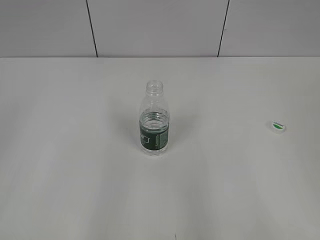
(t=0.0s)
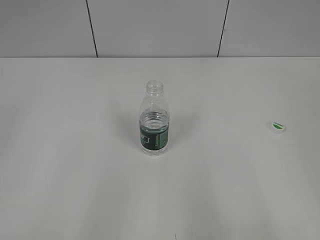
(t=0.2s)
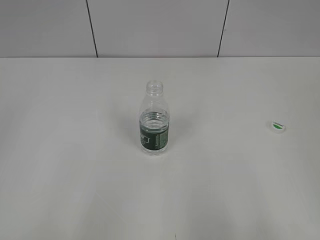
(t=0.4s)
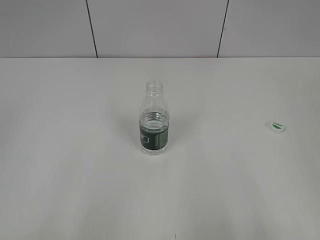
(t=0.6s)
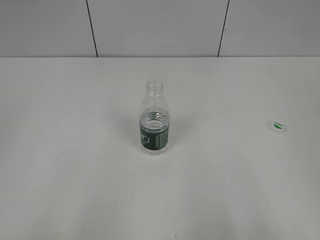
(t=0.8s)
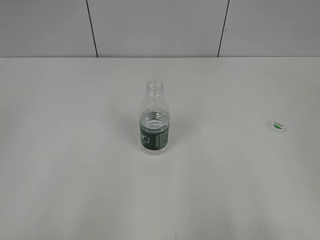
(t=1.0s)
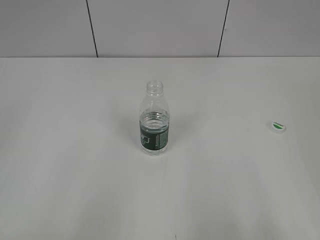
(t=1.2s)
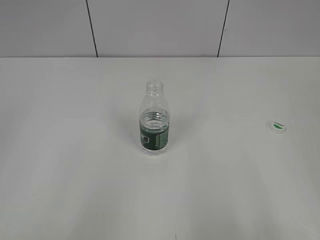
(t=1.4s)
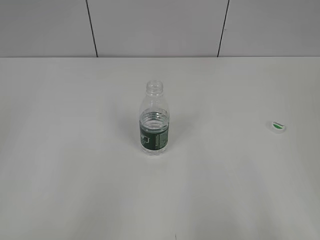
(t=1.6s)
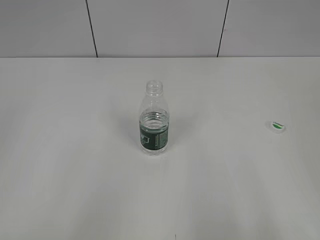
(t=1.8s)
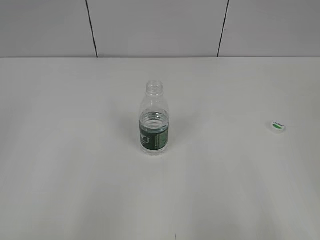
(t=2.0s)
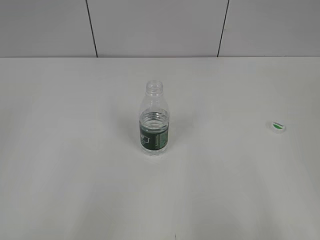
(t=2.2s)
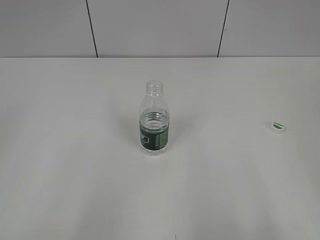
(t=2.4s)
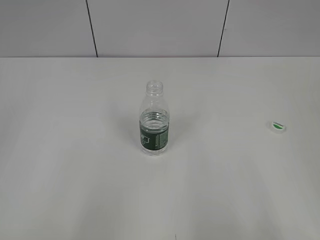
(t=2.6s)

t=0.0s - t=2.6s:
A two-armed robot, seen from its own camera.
t=1.2s - t=2.6s: Neither gripper changes place.

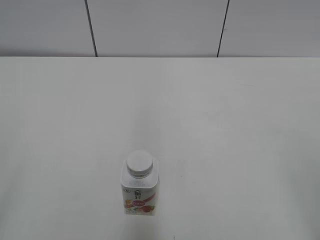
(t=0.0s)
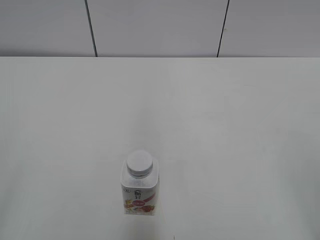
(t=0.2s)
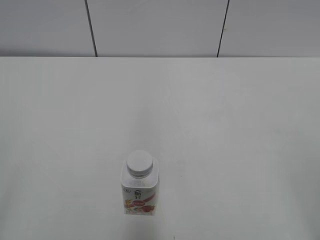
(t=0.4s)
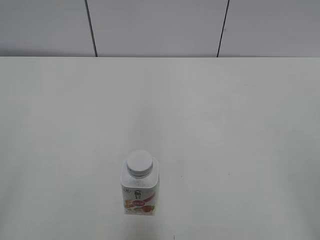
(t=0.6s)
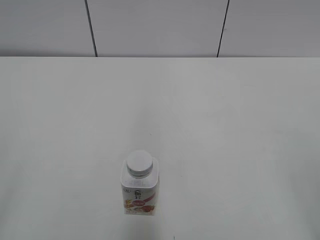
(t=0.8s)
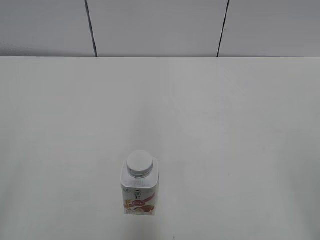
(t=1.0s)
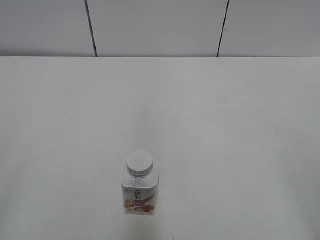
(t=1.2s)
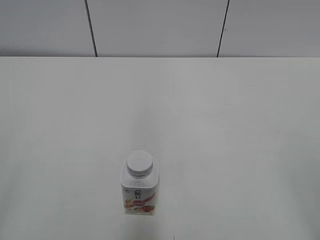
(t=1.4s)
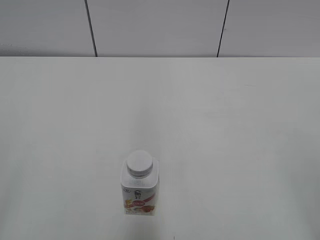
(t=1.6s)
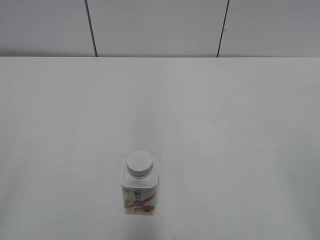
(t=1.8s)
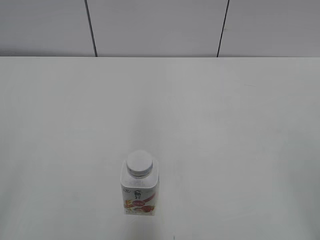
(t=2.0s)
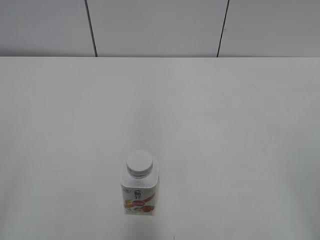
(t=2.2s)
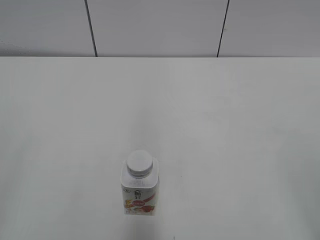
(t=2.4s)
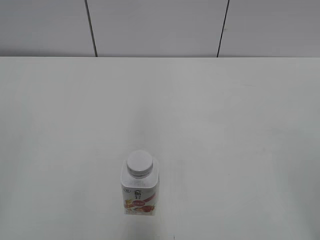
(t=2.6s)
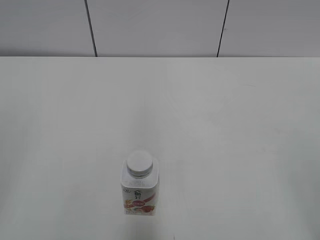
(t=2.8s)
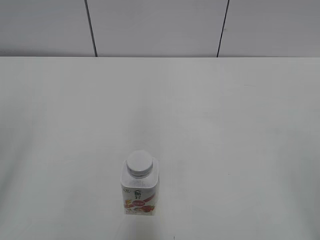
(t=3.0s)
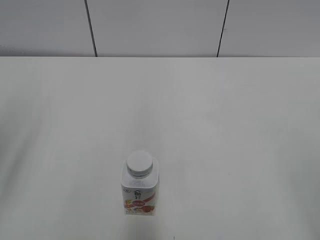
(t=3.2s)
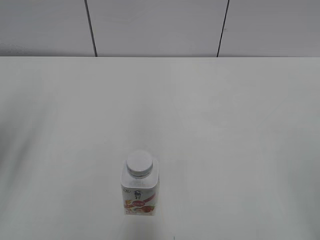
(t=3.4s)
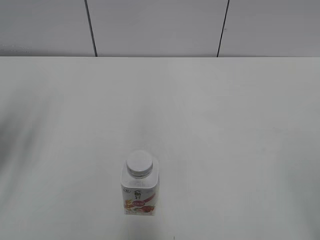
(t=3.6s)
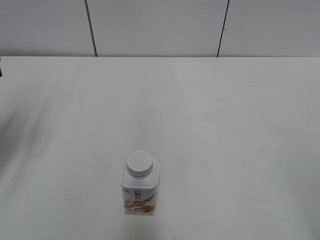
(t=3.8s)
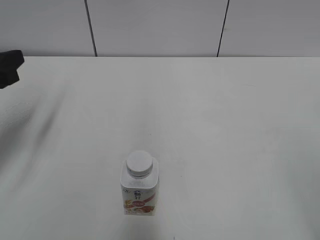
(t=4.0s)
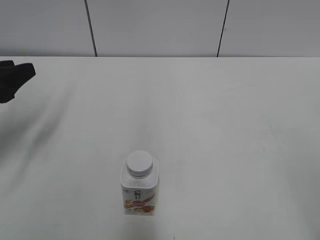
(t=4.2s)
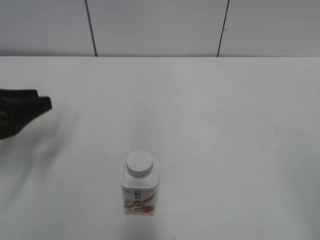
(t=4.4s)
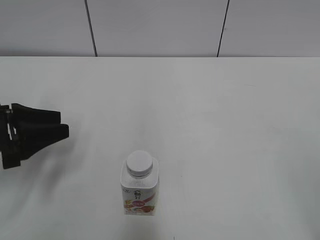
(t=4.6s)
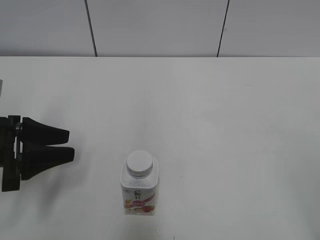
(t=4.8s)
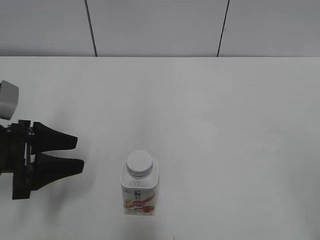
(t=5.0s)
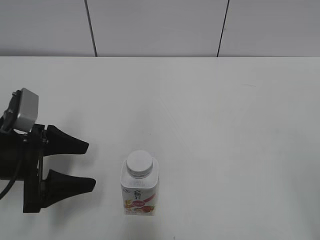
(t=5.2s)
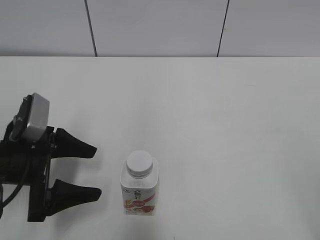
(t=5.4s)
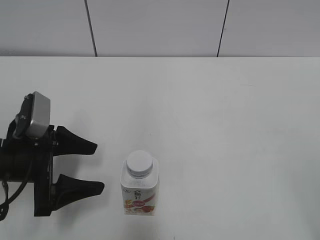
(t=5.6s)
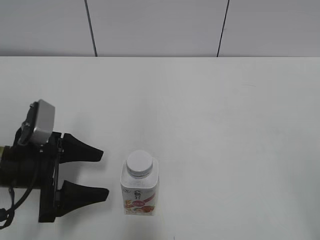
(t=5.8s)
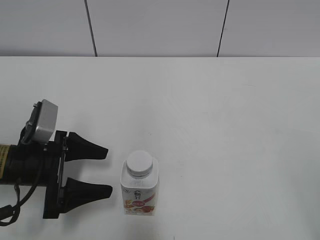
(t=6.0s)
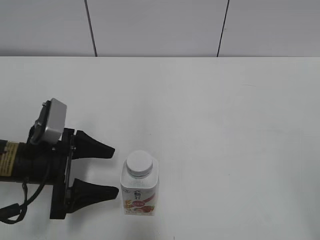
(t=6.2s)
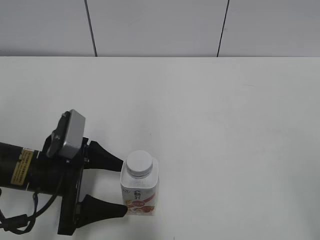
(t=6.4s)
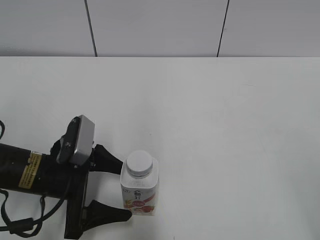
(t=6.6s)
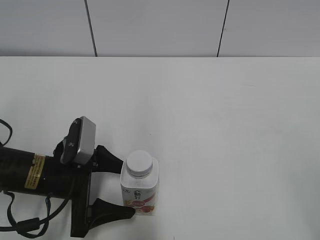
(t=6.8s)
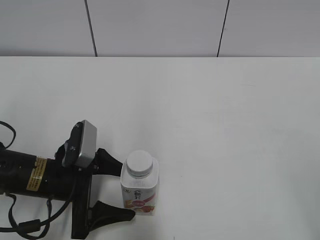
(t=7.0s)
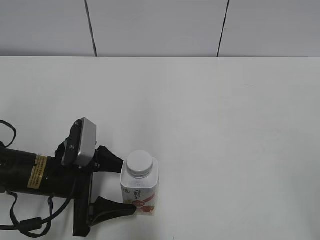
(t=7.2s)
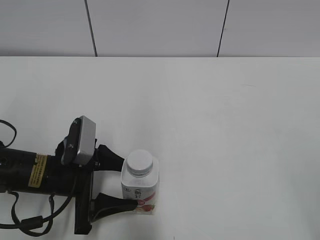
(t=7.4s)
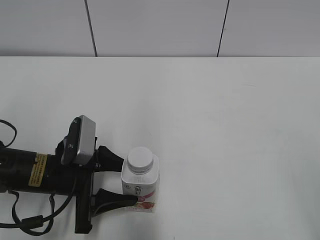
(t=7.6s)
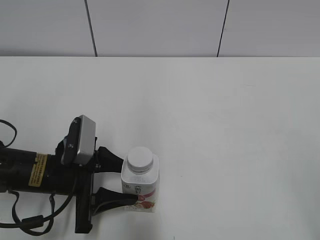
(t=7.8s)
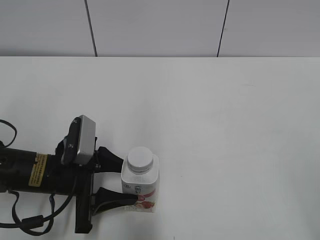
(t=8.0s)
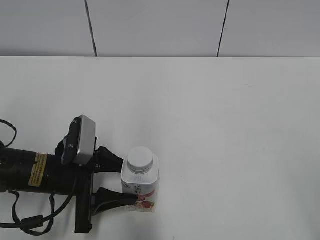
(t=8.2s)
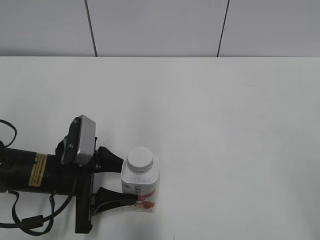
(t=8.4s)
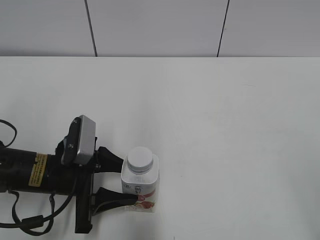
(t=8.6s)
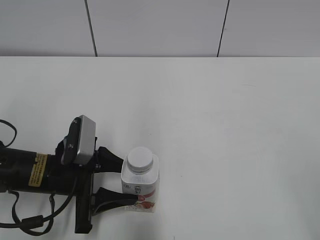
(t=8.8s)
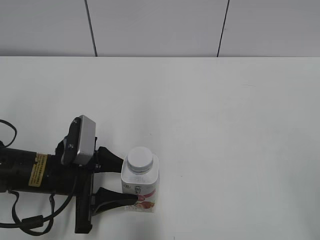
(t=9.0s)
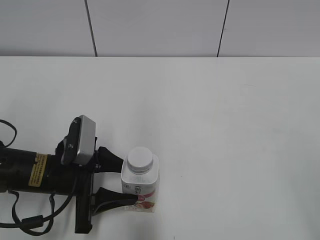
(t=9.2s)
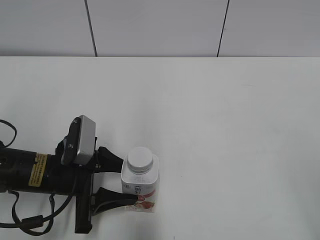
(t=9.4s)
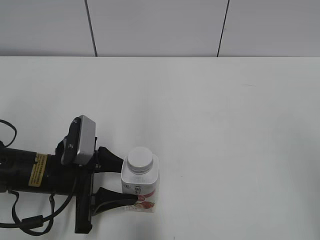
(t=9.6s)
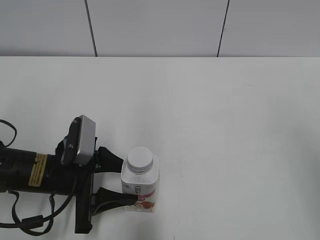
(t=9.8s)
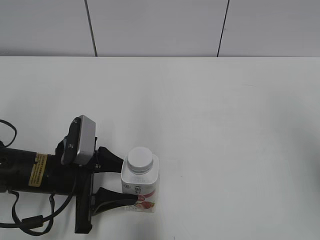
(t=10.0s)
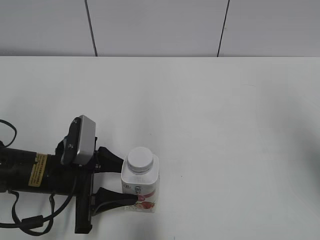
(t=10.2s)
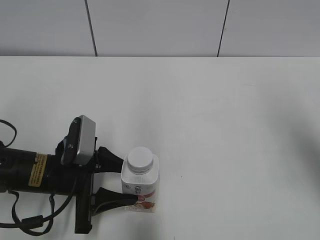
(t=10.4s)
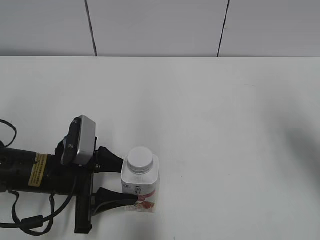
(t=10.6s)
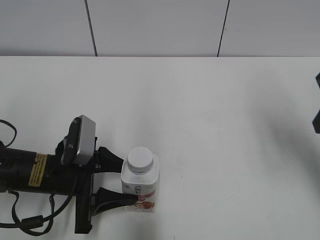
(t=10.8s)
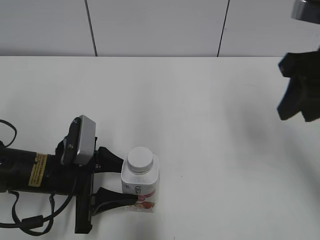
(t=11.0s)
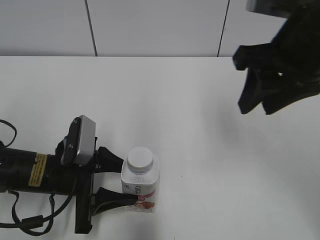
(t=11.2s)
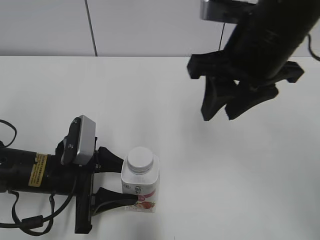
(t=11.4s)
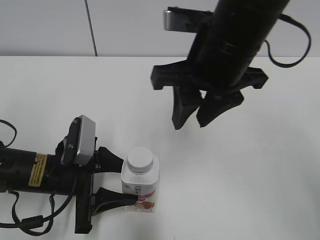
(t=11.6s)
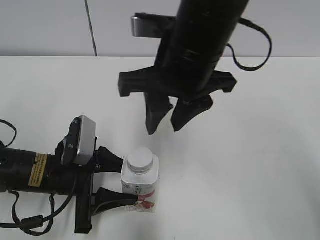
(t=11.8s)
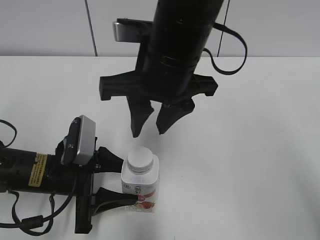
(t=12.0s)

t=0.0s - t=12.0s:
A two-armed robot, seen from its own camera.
Step, t=0.0s - t=8.2s: Grab the Yili Changqing with the left hand.
t=3.0s - t=4.4s: The left gripper goes approximately 20 cm forward and downward.
t=4.4s - t=6.0s: The left gripper travels to the right and downward by some 10 cm, and opens up.
t=6.0s - t=7.6s: The left gripper closes.
t=7.6s - t=9.0s: Neither gripper changes place.
t=9.0s - t=10.4s: The right gripper goes some 20 cm forward, and closes its fingers.
t=10.4s - t=12.0s: The right gripper goes some 25 cm to the left.

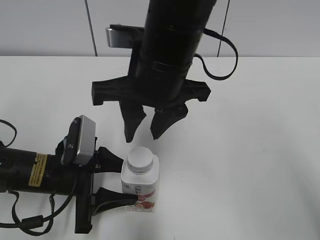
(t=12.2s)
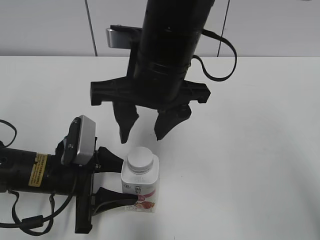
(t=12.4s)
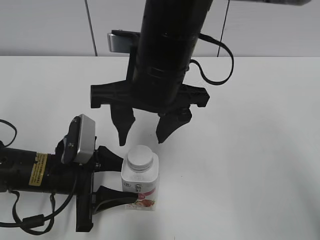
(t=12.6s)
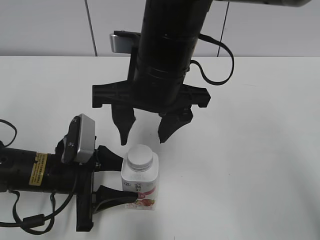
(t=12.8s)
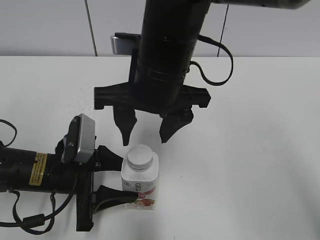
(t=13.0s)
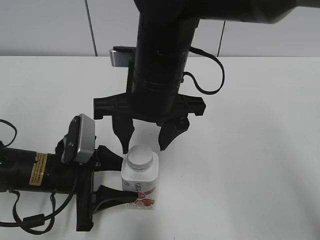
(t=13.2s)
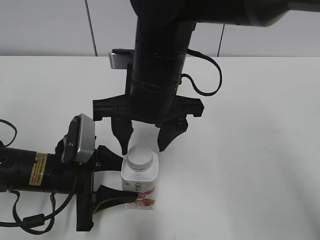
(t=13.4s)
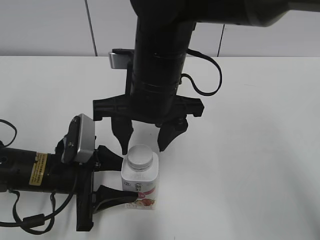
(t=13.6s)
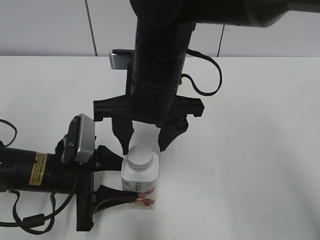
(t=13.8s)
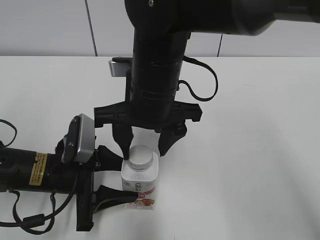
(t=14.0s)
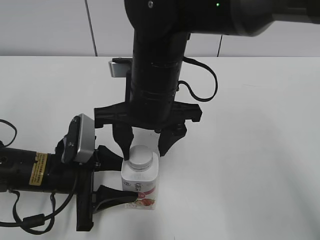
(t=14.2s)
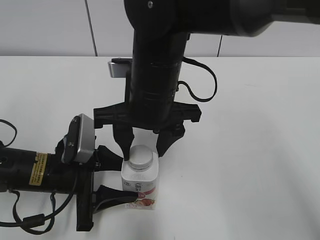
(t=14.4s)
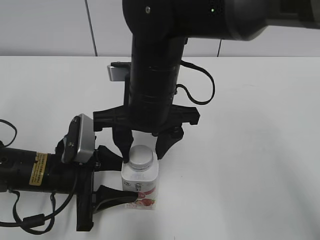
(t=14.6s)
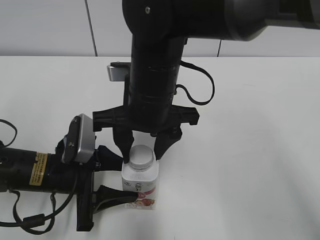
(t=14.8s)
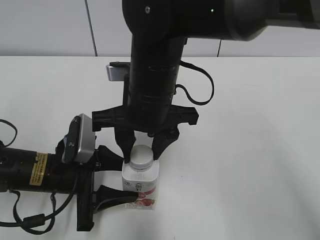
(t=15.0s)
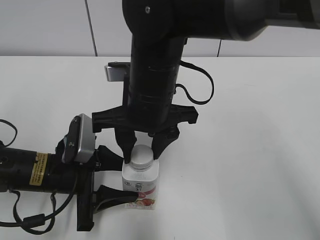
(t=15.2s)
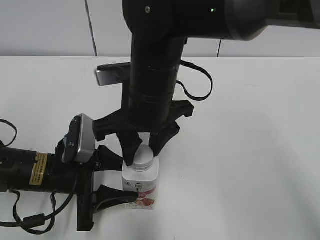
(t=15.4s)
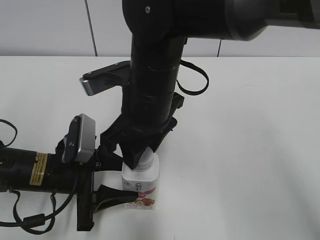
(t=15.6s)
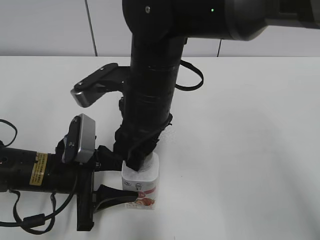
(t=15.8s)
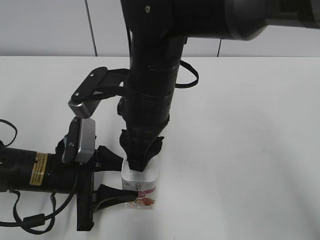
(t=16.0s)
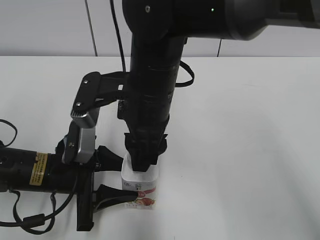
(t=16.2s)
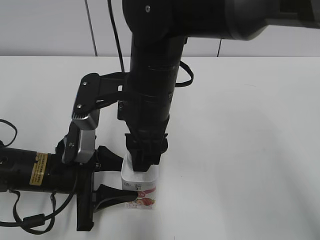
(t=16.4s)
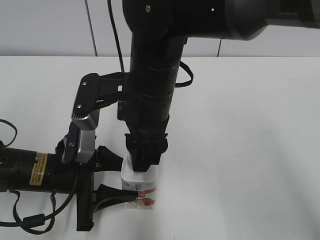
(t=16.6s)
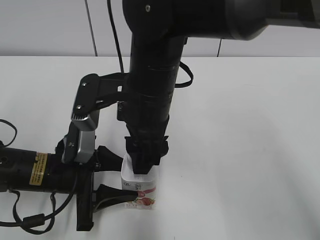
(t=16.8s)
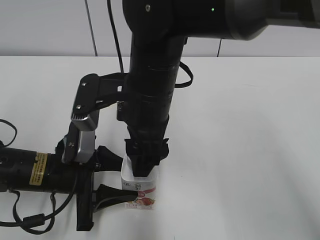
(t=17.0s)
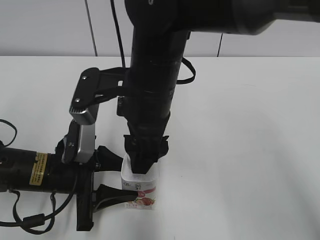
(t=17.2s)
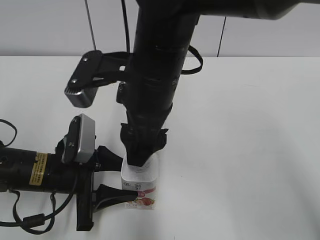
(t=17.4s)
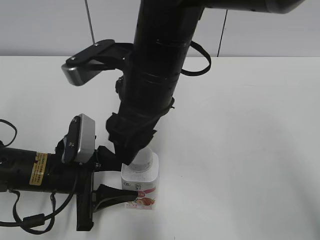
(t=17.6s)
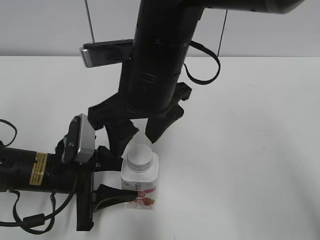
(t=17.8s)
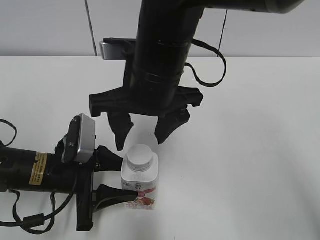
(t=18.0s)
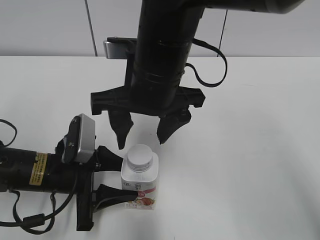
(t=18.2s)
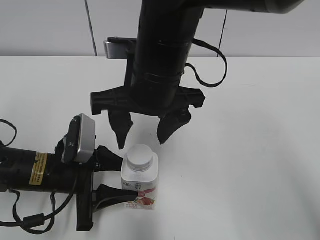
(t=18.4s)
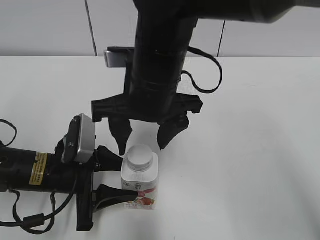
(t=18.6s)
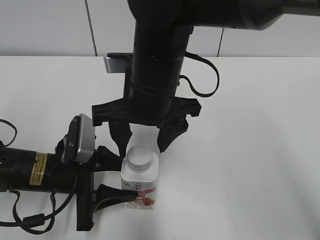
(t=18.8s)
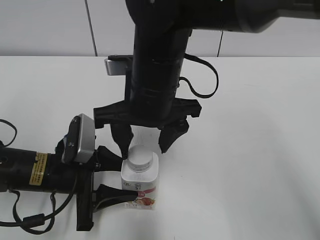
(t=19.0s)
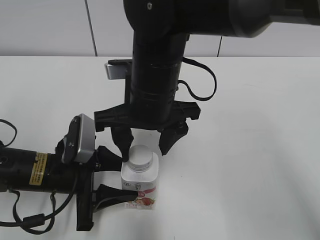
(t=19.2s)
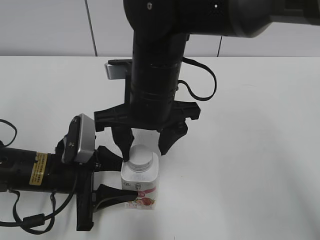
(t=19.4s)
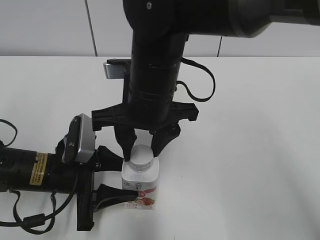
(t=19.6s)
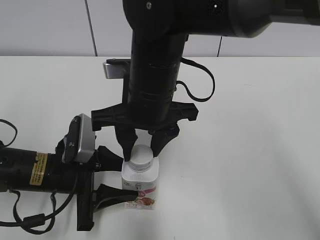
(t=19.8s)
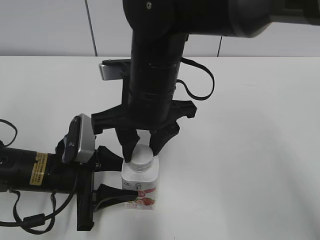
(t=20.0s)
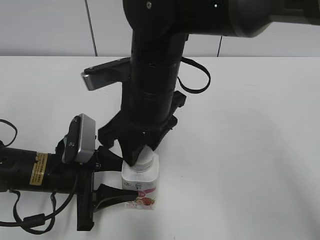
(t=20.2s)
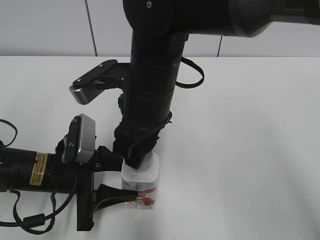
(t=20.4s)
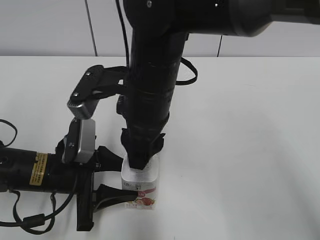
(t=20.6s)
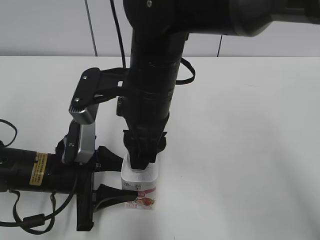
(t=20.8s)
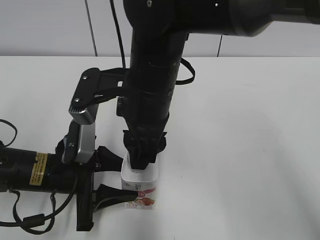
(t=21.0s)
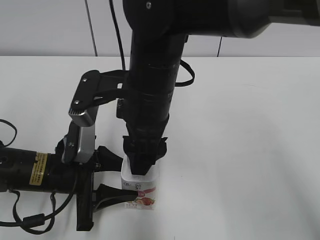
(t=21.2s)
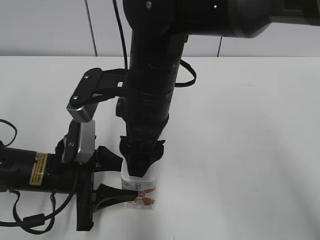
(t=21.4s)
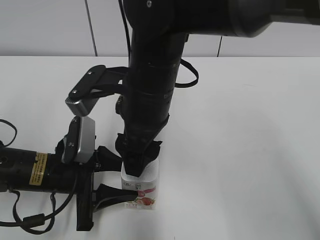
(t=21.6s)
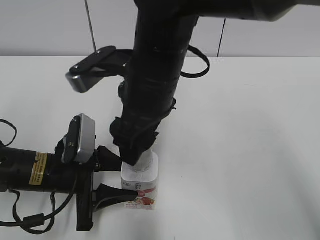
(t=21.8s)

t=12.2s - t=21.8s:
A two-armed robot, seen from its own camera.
t=12.2s - t=13.8s: The right gripper opens up.
t=13.8s - t=15.4s: The right gripper closes up.
t=15.4s - t=17.0s: The right gripper opens its fingers.
t=18.6s - t=20.2s: The right gripper closes up.
t=20.2s - t=21.8s: The right gripper opens.
